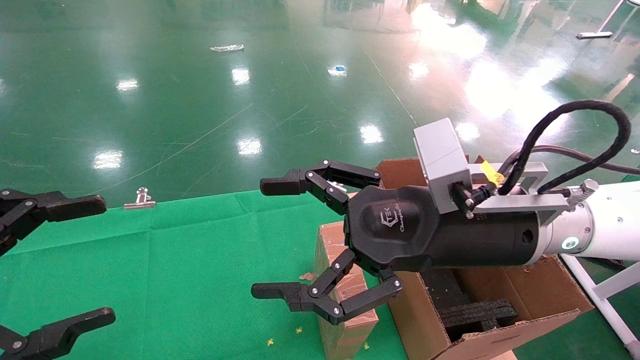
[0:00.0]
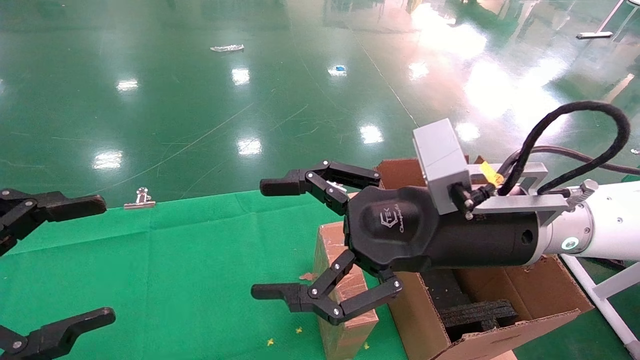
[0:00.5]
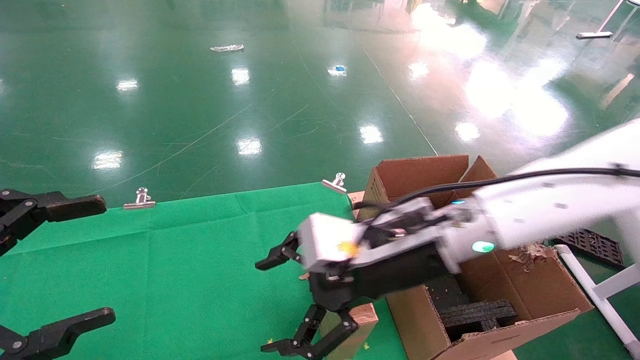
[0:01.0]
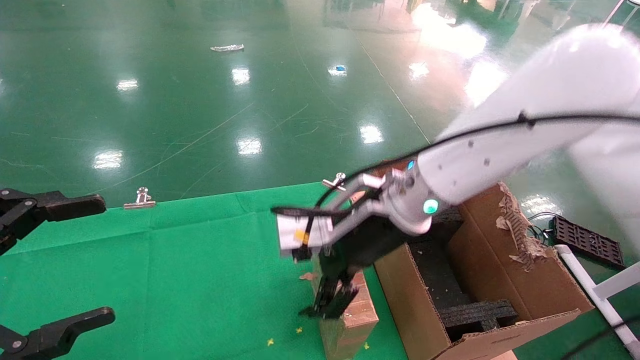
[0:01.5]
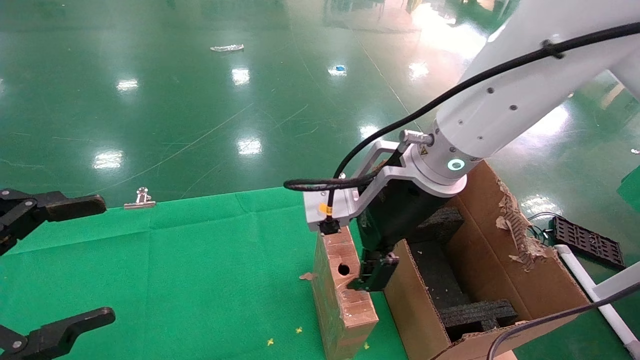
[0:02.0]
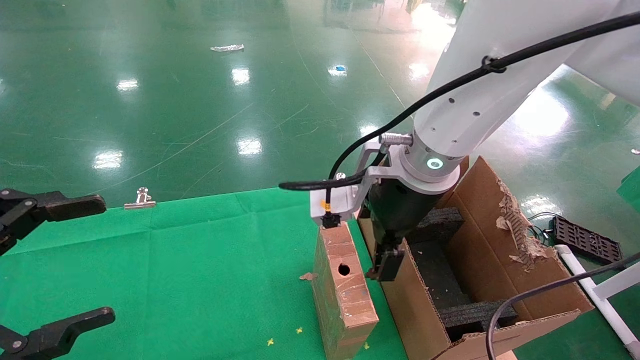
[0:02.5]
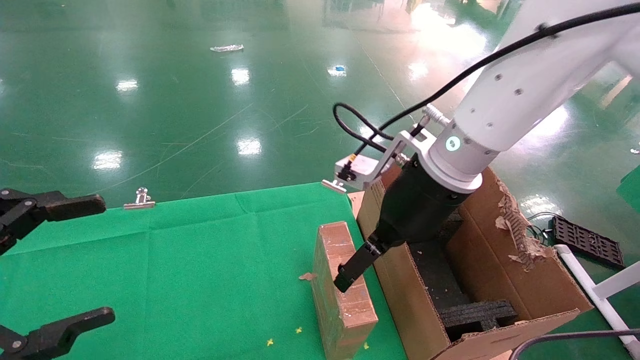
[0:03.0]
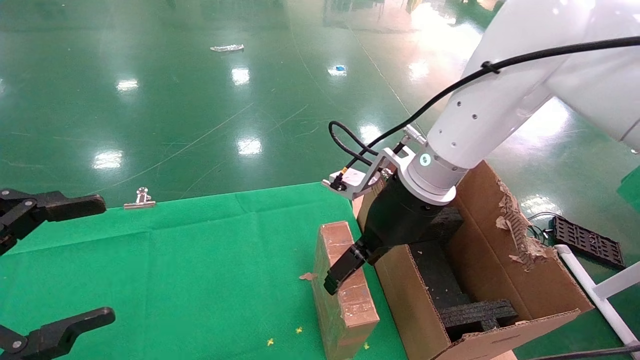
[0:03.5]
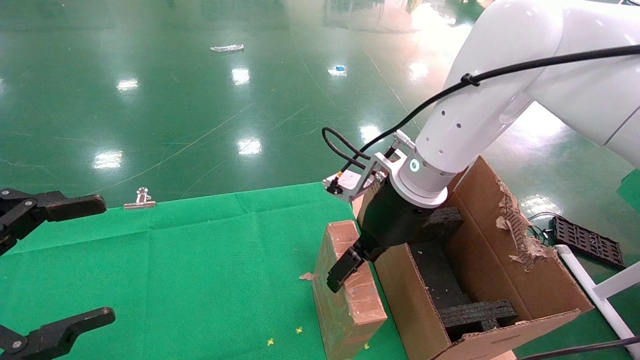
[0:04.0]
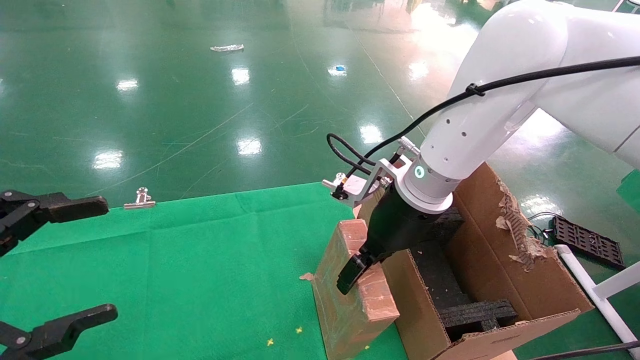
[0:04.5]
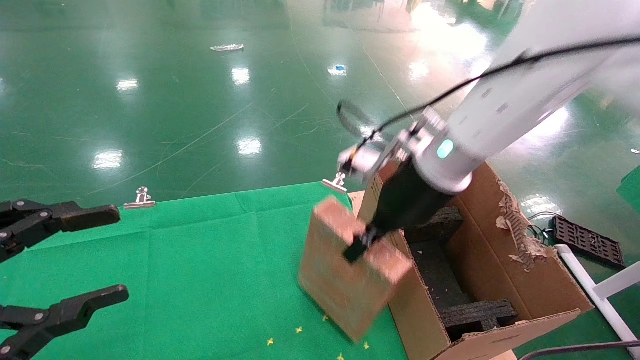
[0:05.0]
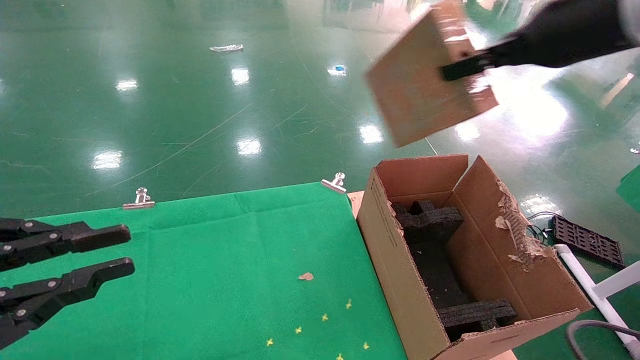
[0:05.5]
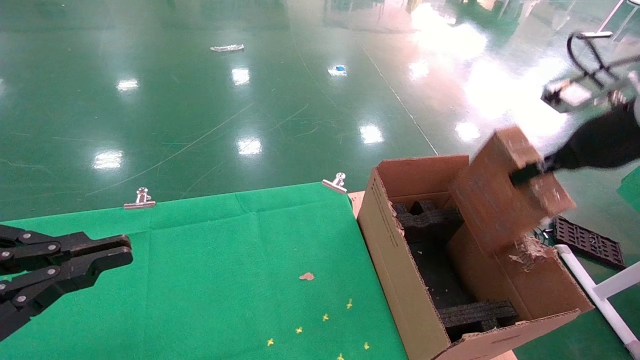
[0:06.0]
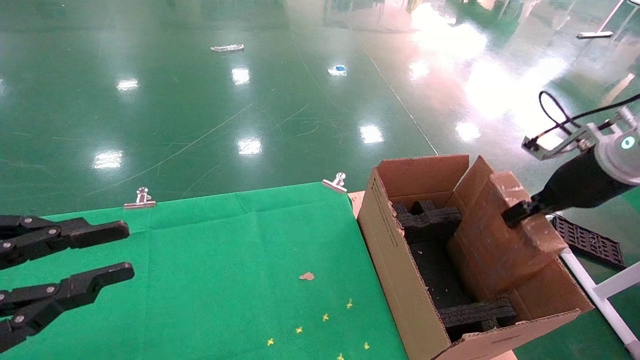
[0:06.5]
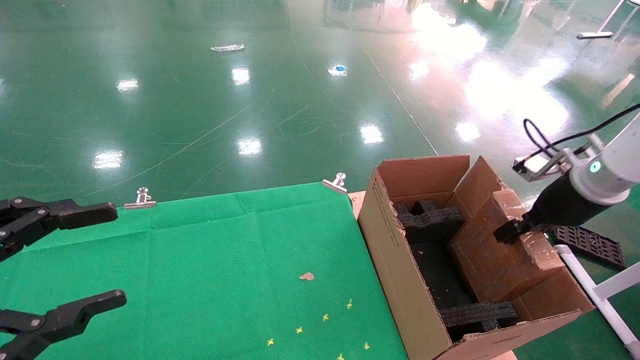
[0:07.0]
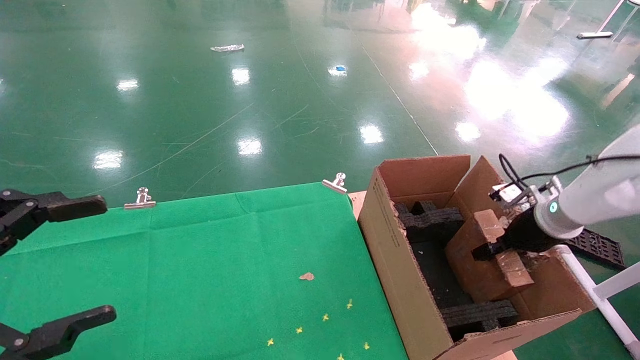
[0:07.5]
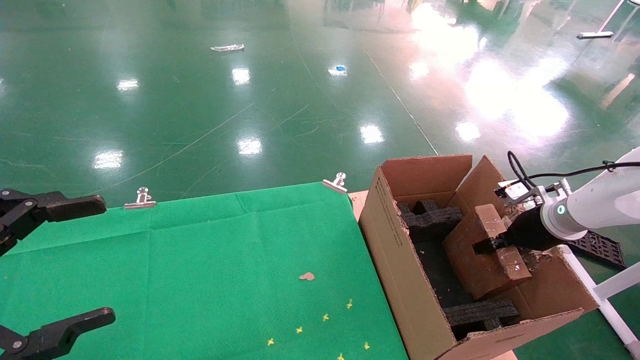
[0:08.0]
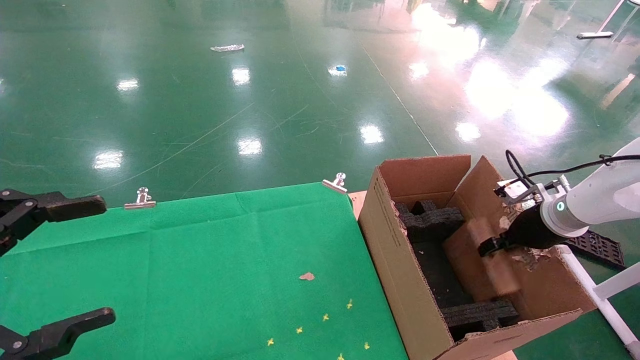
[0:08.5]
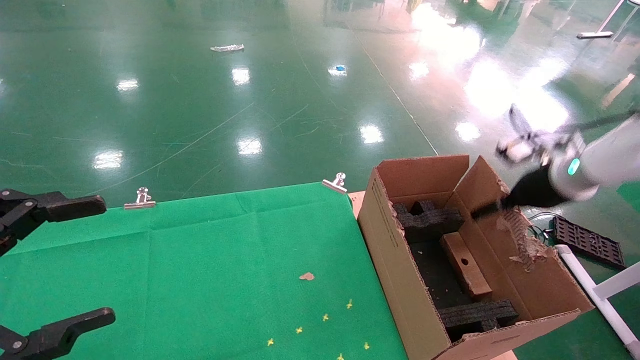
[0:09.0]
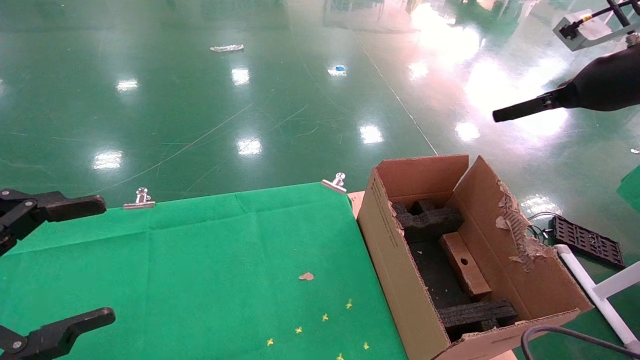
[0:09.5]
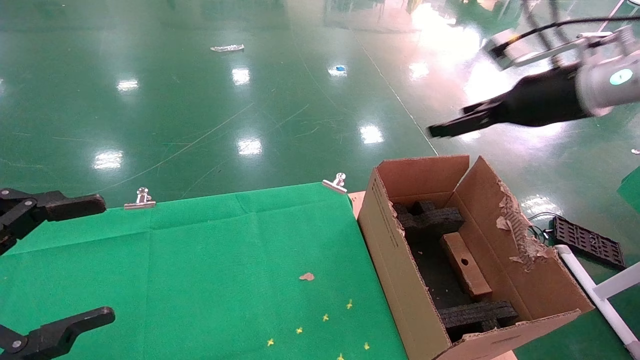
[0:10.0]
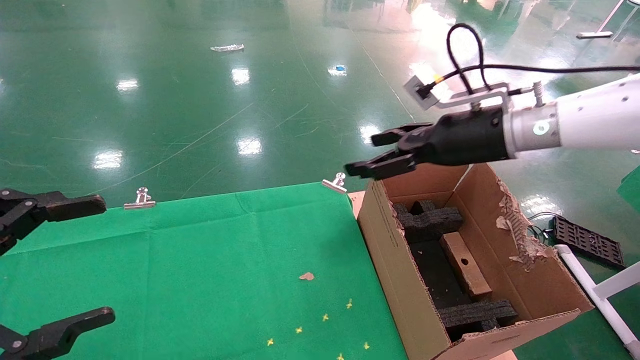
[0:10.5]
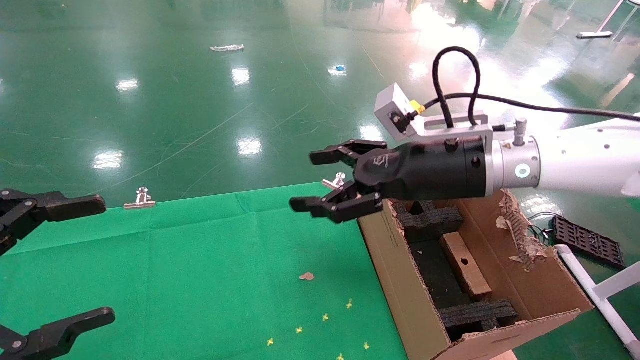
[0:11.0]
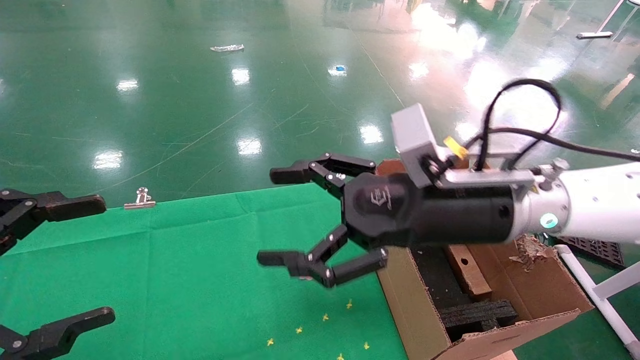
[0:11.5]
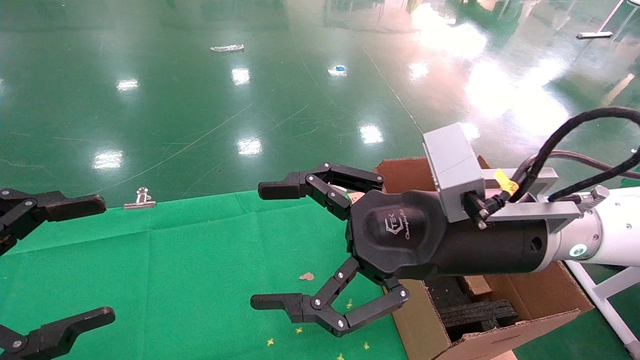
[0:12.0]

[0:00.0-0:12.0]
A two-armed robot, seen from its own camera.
Task of the whole recording: using a robotic arm to pick up a cardboard box and palace it the carton.
Step, 0:01.0 to 0:05.0: Pick up the mouse and the power cord paper box.
Step, 0:05.5 to 0:09.5: Place the mouse and the power cord paper box into the container.
0:00.0 to 0:02.0: The right gripper is displaced forward and to the left by approximately 10 cm.
0:02.0 to 0:04.0: The right gripper ends up some 5 cm from where it was.
0:04.0 to 0:06.0: The right gripper moves to the right, about 25 cm, and closes up; the left gripper closes up.
0:06.0 to 0:08.0: The right gripper heads downward, covering some 20 cm; the left gripper opens.
0:08.0 to 0:10.0: The right gripper is displaced upward by some 20 cm, and opens its fingers.
0:10.0 to 0:12.0: The right gripper shifts some 25 cm to the left, backward and downward.

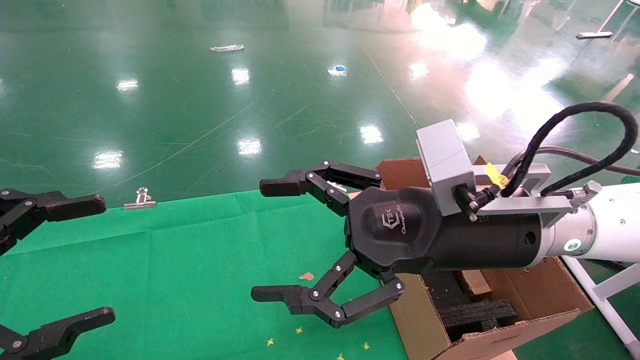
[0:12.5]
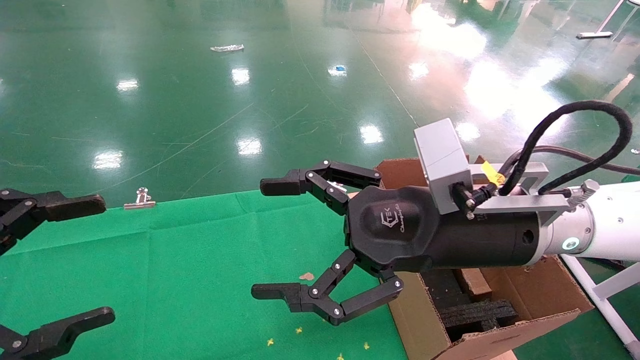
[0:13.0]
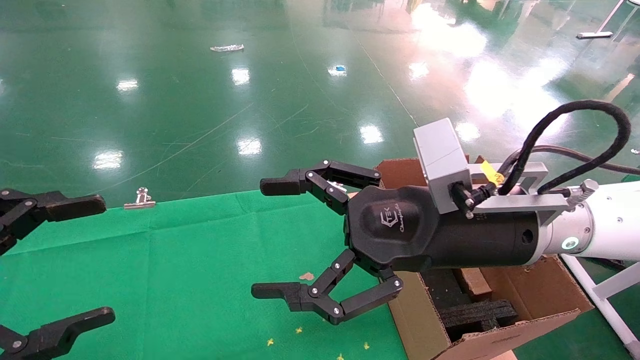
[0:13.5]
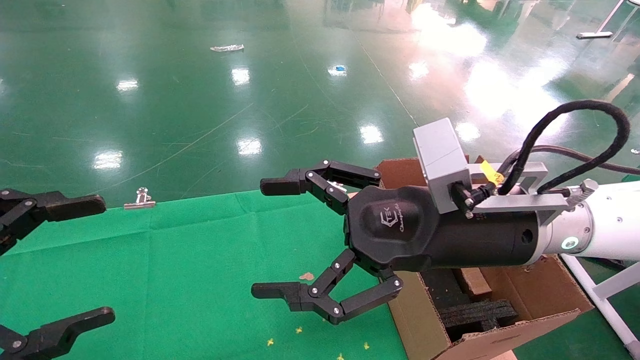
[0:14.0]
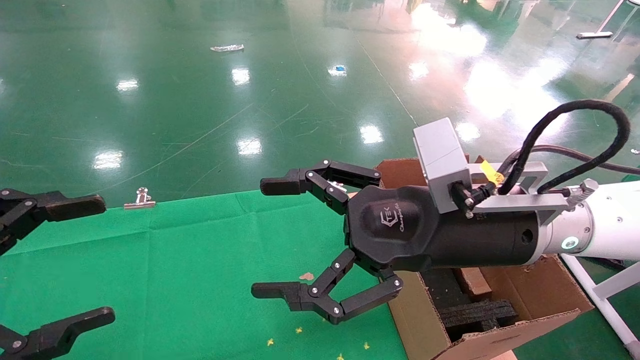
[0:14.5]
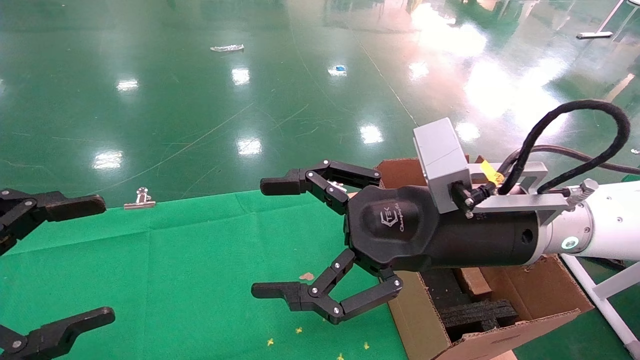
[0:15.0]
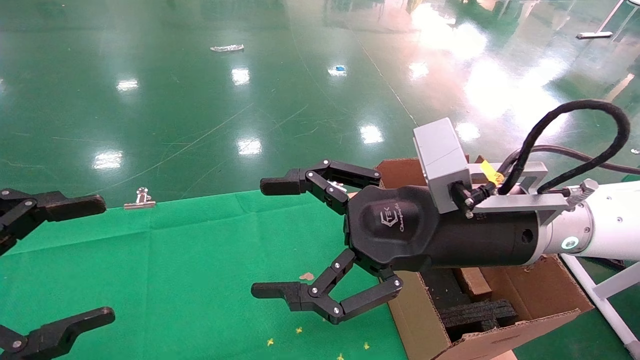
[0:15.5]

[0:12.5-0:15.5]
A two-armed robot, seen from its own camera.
Task of the whole recording: using a robotic arm to pick up a cardboard box and palace it the carton.
0:12.5 to 0:15.5: Neither gripper changes place.
